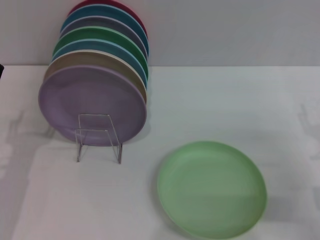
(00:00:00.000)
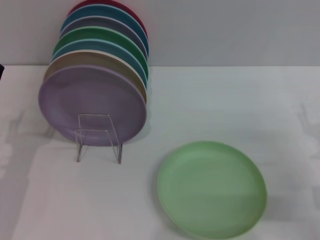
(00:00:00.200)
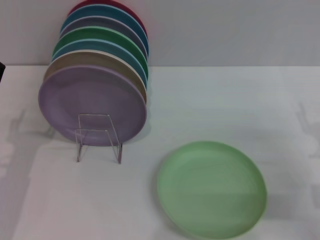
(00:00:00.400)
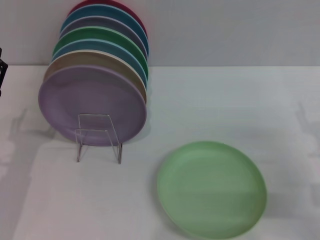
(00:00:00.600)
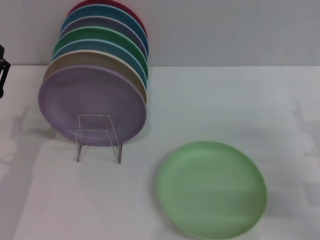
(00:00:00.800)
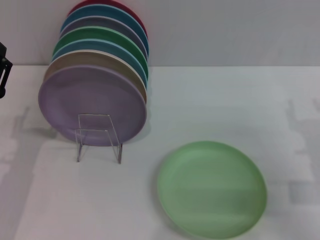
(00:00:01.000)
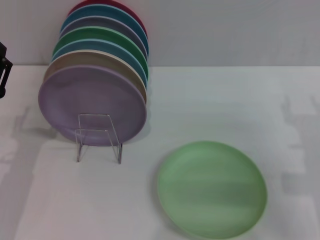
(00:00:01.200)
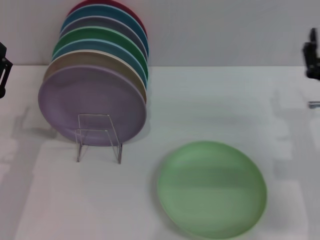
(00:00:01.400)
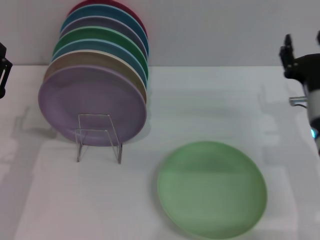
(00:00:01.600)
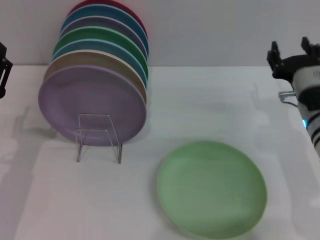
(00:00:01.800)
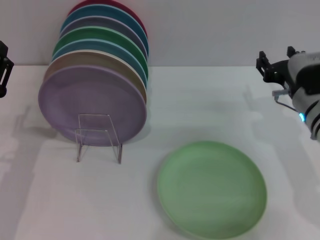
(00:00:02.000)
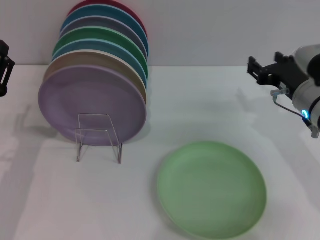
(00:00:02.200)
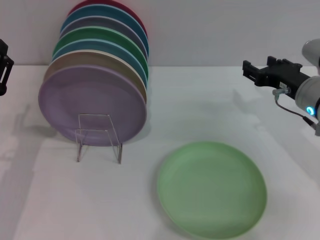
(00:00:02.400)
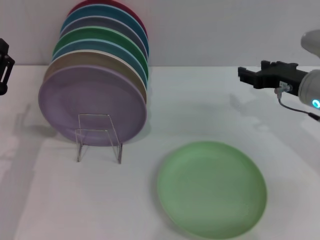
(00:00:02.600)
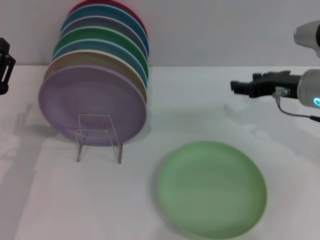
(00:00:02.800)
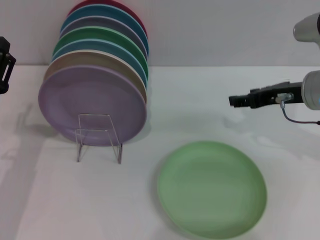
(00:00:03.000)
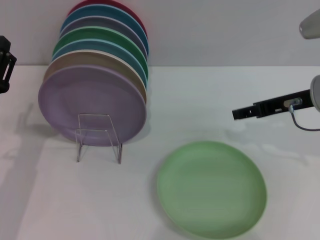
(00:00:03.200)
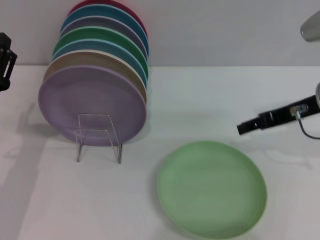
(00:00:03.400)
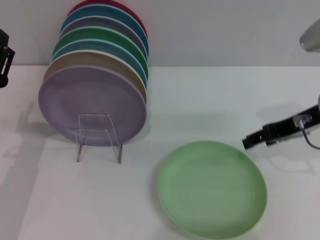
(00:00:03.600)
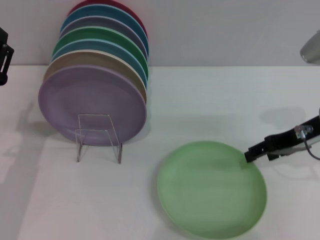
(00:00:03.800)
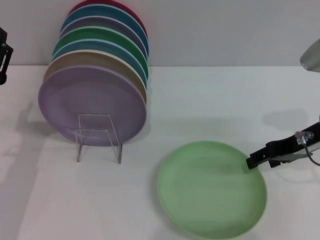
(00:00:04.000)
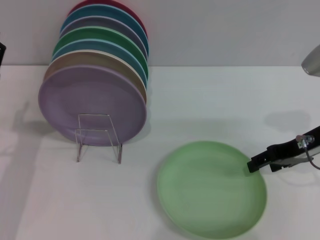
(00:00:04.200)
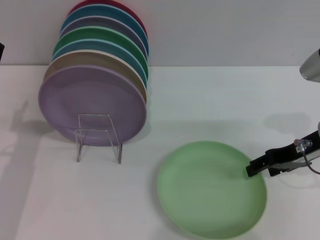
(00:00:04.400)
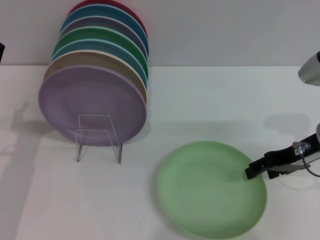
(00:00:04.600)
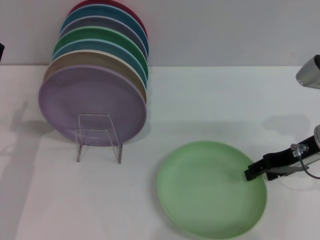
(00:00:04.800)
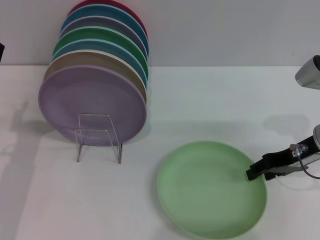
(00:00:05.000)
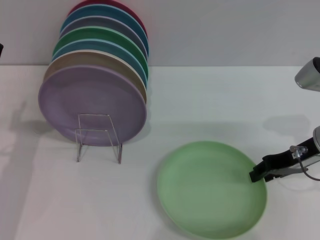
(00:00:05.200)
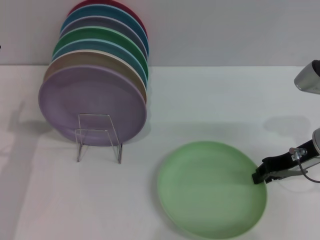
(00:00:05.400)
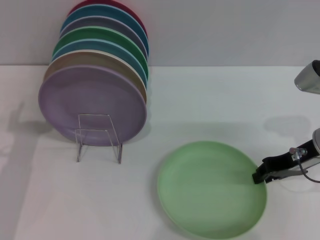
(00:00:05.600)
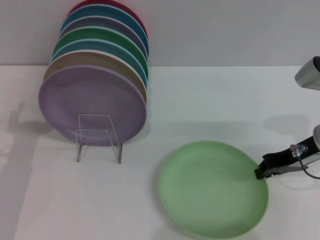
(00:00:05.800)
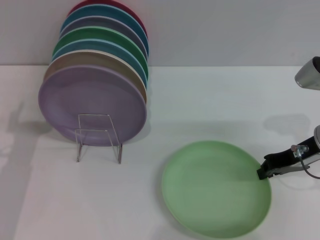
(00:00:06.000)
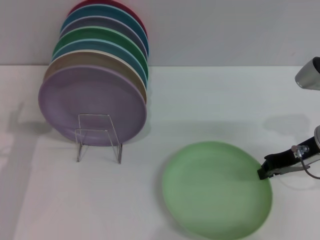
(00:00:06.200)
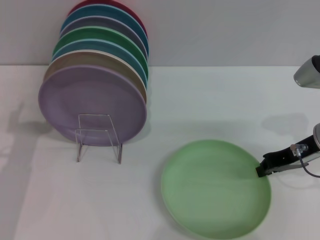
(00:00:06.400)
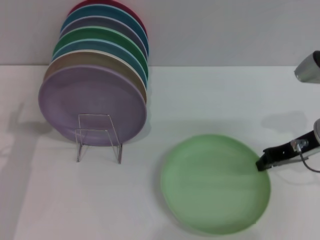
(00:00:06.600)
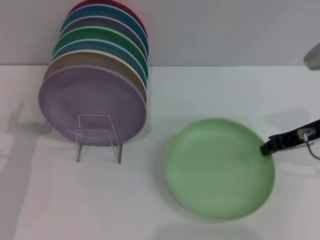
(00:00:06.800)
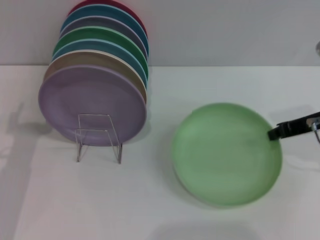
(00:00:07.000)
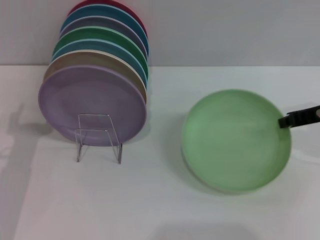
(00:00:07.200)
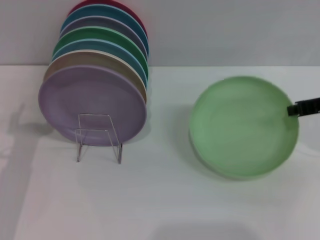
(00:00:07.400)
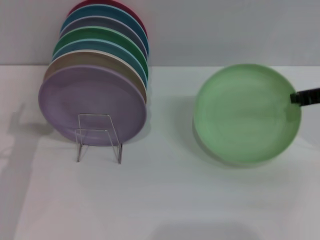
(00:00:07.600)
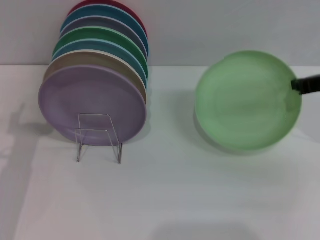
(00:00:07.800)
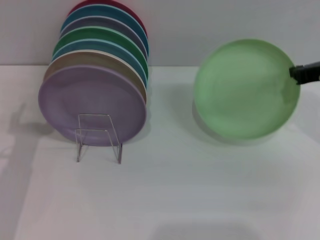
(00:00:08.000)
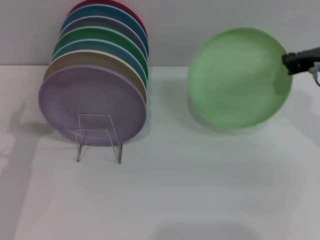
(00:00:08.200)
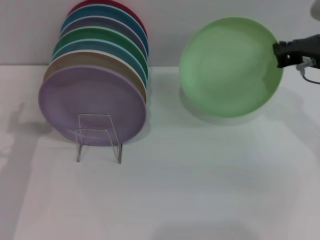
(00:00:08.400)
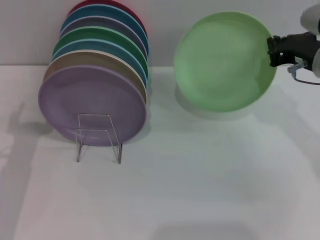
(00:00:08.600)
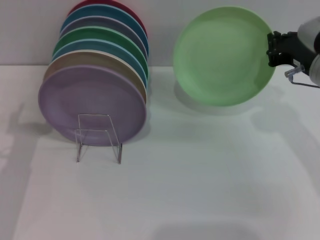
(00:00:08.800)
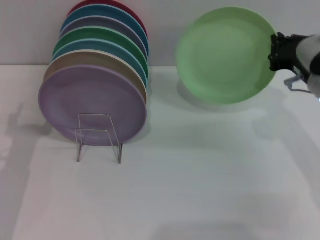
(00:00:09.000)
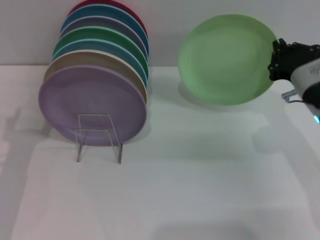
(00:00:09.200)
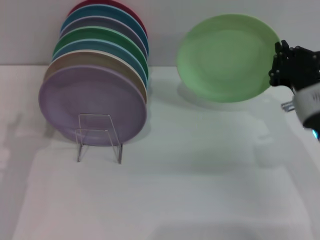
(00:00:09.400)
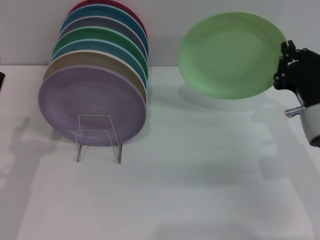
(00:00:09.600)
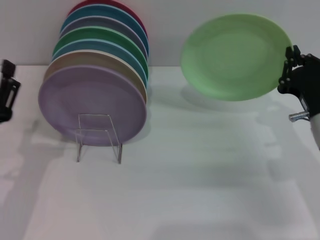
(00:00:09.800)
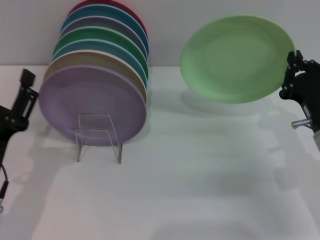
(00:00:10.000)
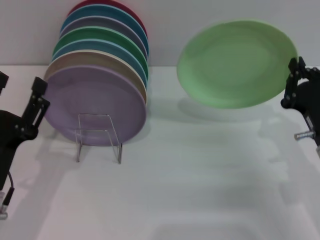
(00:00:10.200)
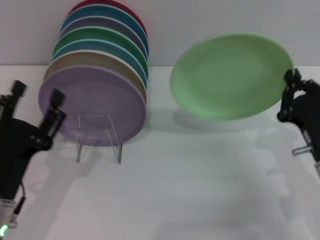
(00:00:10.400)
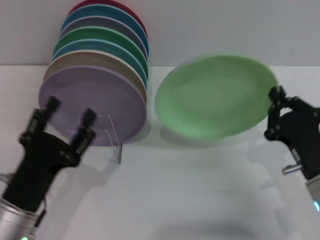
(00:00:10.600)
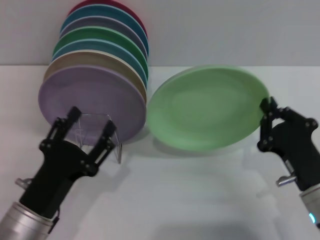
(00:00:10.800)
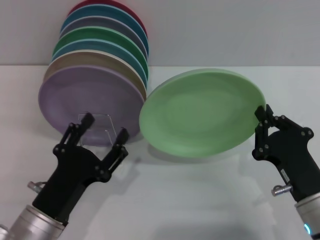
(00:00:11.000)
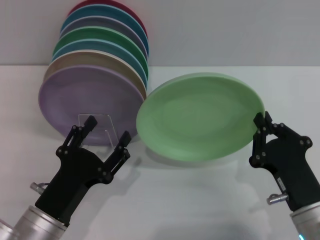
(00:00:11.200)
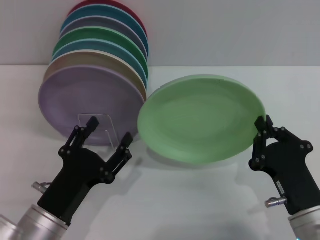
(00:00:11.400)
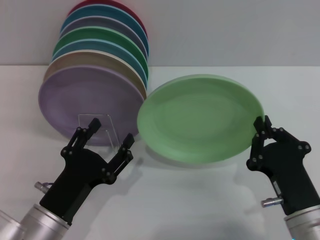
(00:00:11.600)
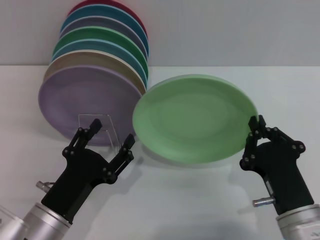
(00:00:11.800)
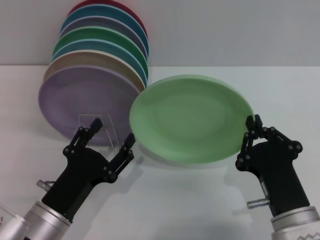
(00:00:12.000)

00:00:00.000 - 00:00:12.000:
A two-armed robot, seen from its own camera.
Task of the whole recording: Grip the plate with one hand, pass it to the other, then set it on the shelf.
Step, 00:00:00.000 - 00:00:07.000: Pick up the plate with the right gripper.
00:00:00.000 - 00:00:01.600: The right gripper heads to the left and forward, covering roughly 10 cm.
00:00:01.600 - 00:00:03.000: The right gripper travels upward by approximately 10 cm.
00:00:04.400 - 00:00:06.000: The right gripper closes.
00:00:06.000 - 00:00:07.600: The right gripper shifts some 5 cm upward.
00:00:07.600 - 00:00:09.000: The right gripper heads to the left, covering approximately 5 cm.
00:00:09.000 - 00:00:10.400: The right gripper travels backward and downward by about 15 cm. Meanwhile the left gripper travels backward by some 5 cm.
00:00:10.400 - 00:00:12.000: The right gripper is displaced to the left and backward by some 10 cm. The left gripper shifts by approximately 5 cm.

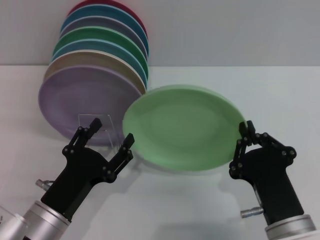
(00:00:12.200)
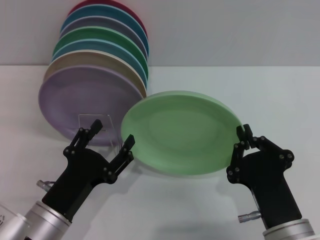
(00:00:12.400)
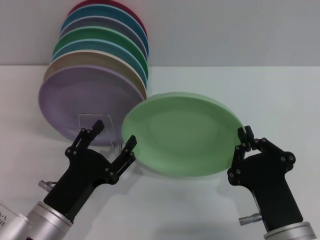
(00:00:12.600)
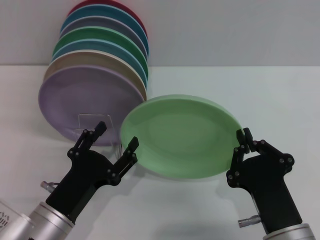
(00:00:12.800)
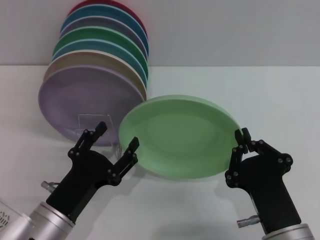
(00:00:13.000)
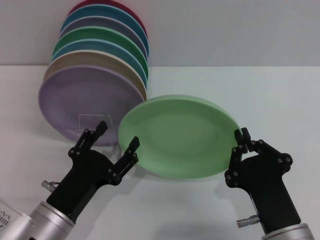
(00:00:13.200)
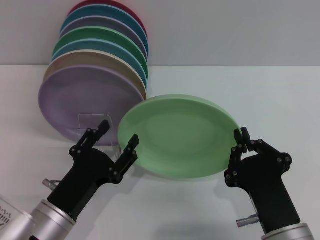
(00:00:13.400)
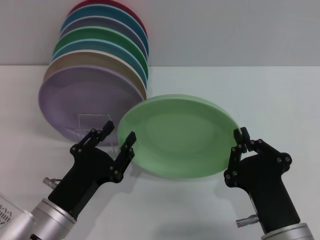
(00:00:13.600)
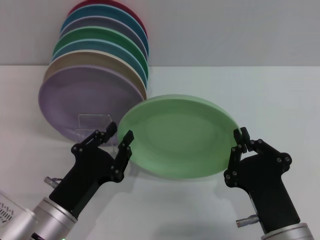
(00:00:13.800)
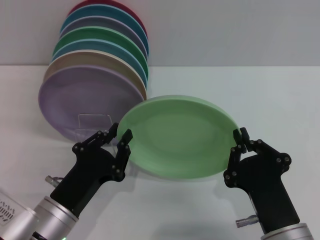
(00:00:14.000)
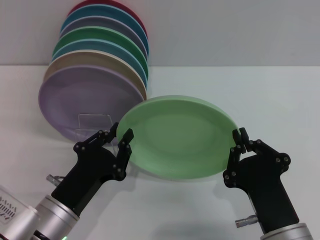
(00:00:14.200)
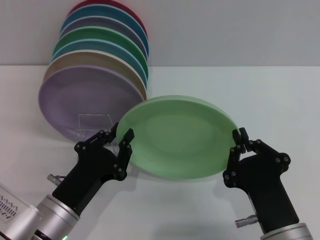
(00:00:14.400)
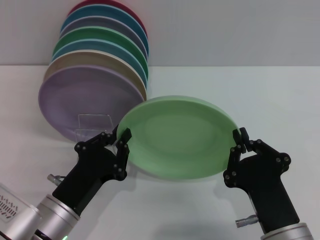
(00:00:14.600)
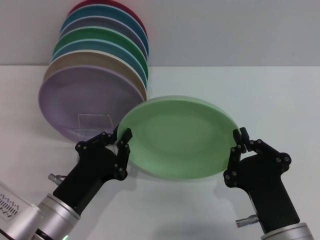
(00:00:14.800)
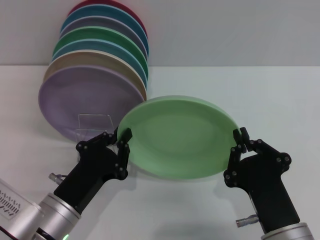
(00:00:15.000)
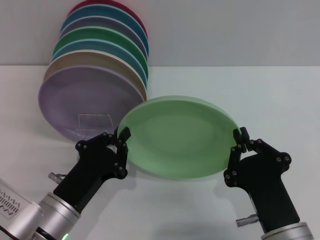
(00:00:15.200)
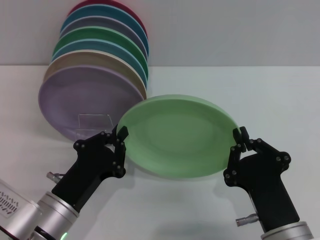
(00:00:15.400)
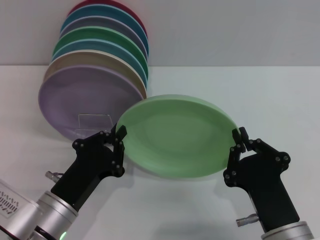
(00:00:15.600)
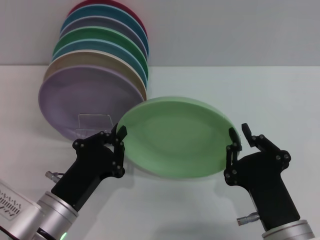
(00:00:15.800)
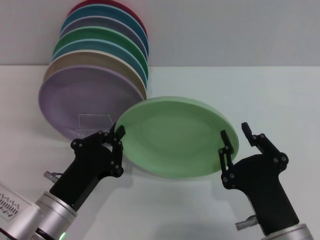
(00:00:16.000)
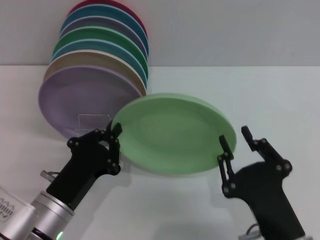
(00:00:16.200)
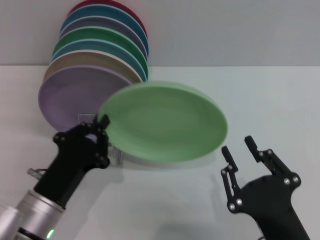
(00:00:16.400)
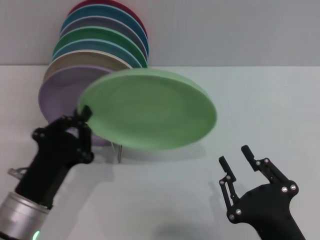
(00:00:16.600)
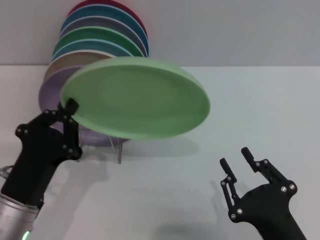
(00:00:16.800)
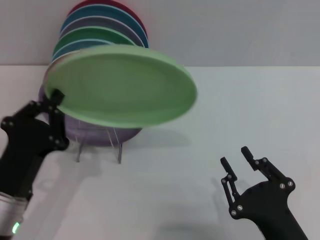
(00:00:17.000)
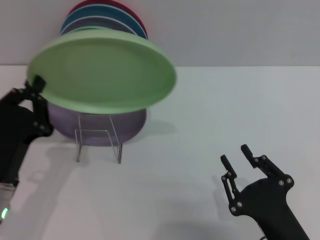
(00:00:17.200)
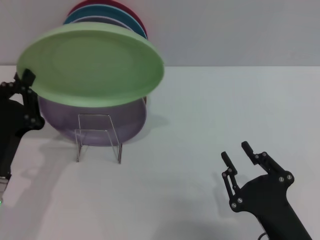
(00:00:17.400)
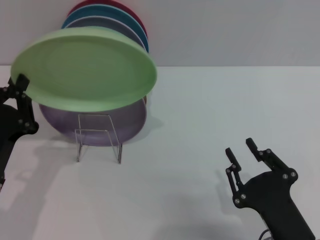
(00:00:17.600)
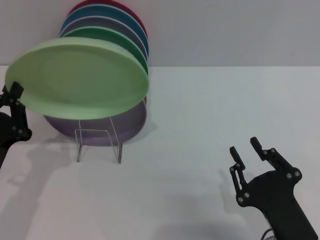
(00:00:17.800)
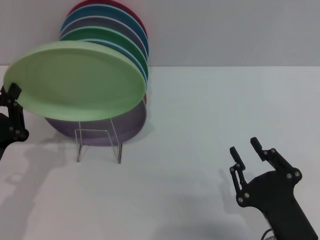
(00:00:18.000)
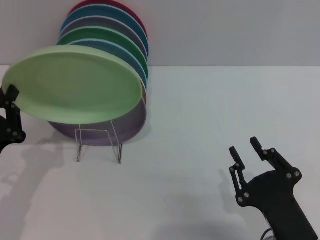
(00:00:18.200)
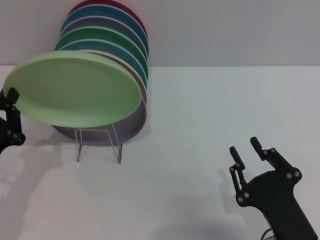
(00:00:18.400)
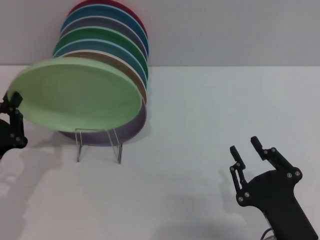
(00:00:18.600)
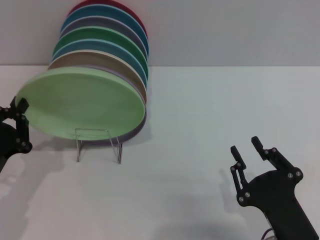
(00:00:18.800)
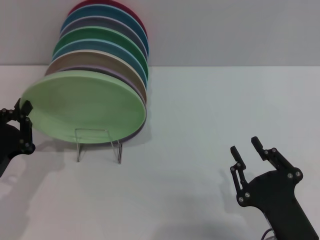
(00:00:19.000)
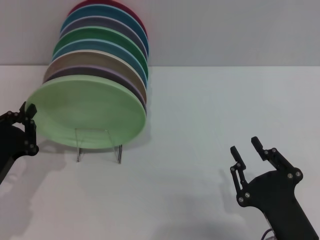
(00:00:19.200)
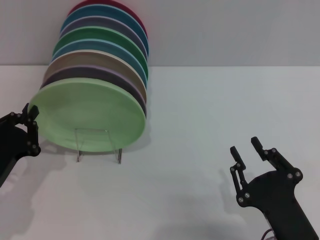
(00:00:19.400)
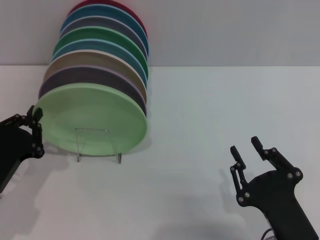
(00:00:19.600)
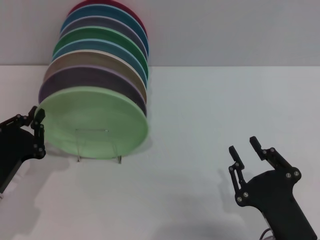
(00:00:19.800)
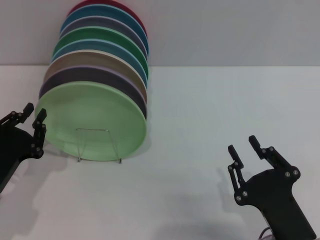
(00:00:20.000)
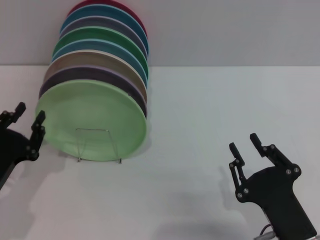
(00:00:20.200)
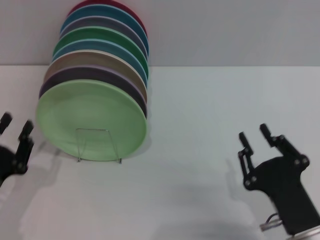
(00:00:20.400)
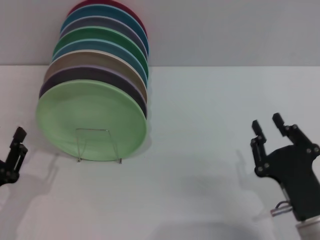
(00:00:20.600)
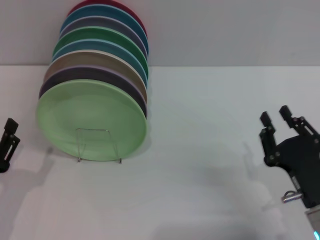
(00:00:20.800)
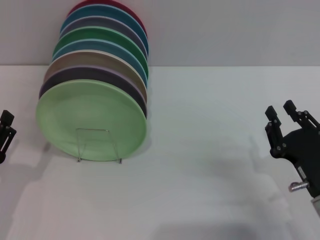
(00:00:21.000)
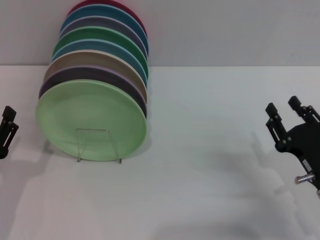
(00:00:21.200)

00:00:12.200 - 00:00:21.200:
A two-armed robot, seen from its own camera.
Task of the whole recording: Grip the plate with one hand, pass it to the other, then set it on the shelf.
Step, 00:00:12.200 - 00:00:16.400: Pass the plate from the right gripper to the left gripper.
Step, 00:00:16.600 - 00:00:20.200: Place the plate on the shelf with the left gripper.
00:00:12.200 - 00:00:13.800: Neither gripper changes place.
00:00:13.800 - 00:00:15.200: The left gripper closes its fingers.
00:00:16.600 - 00:00:18.200: The left gripper moves to the left, about 10 cm.
00:00:18.200 - 00:00:19.800: The grippers make only small movements.
00:00:19.800 - 00:00:21.200: The left gripper opens, while the right gripper travels forward and to the right by approximately 10 cm.
